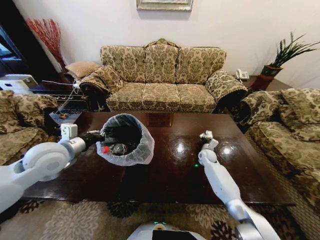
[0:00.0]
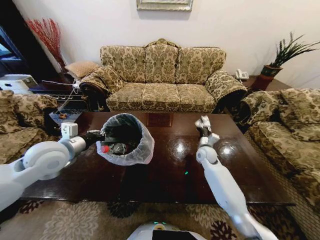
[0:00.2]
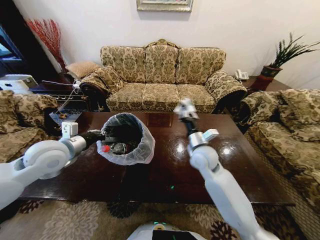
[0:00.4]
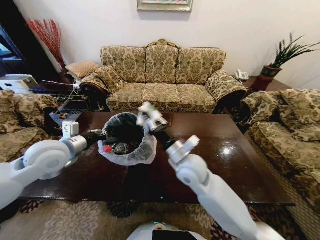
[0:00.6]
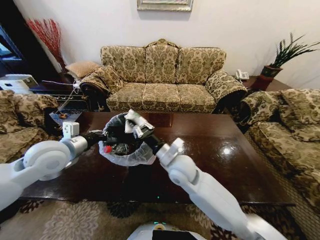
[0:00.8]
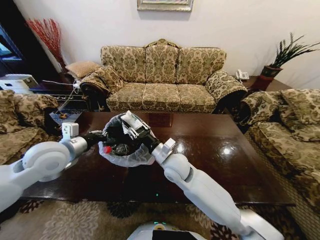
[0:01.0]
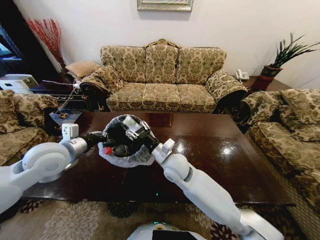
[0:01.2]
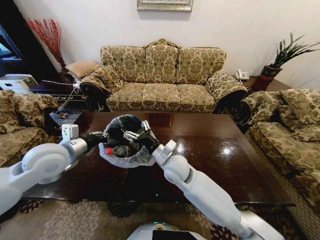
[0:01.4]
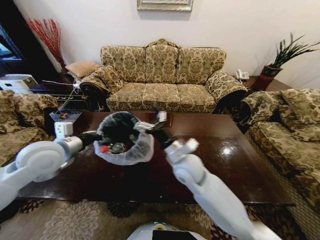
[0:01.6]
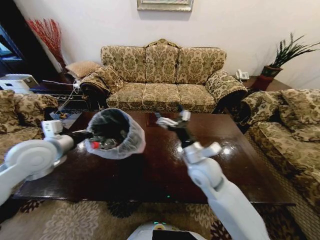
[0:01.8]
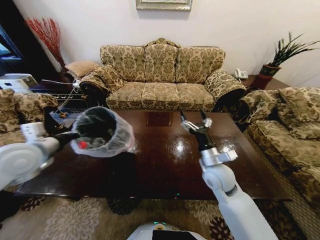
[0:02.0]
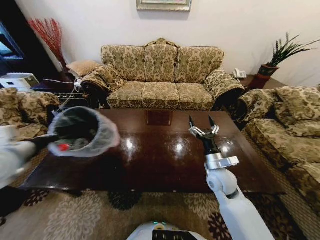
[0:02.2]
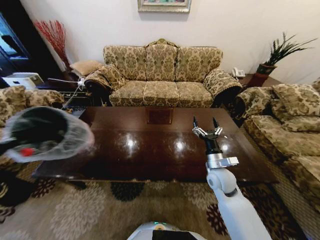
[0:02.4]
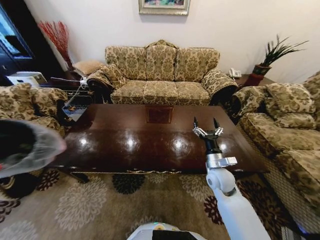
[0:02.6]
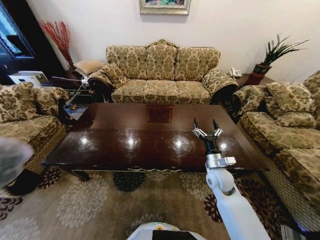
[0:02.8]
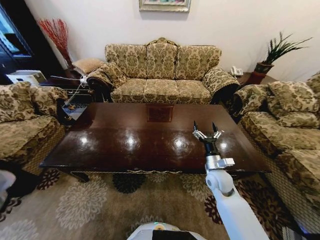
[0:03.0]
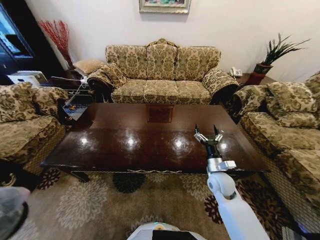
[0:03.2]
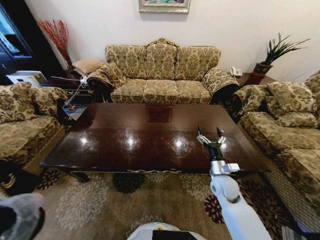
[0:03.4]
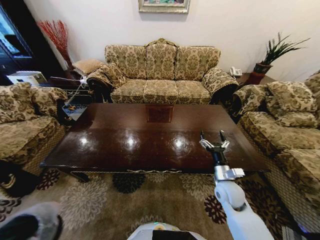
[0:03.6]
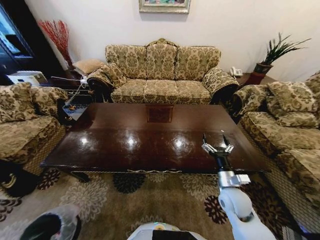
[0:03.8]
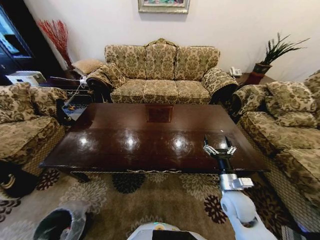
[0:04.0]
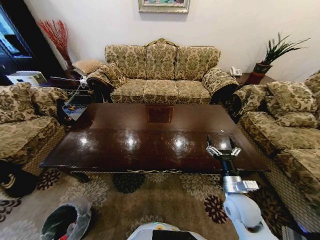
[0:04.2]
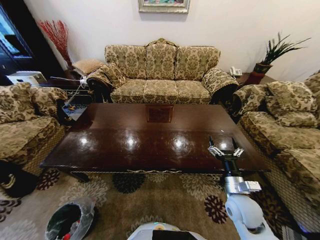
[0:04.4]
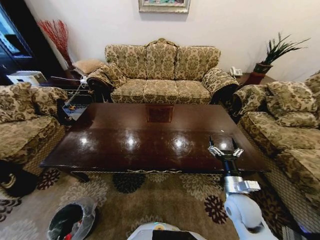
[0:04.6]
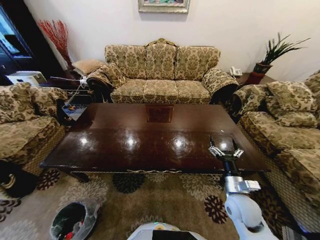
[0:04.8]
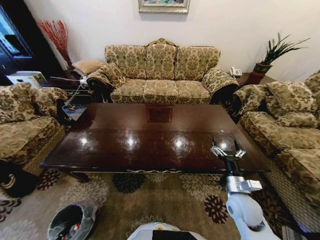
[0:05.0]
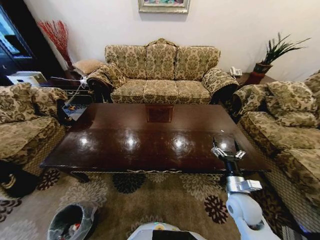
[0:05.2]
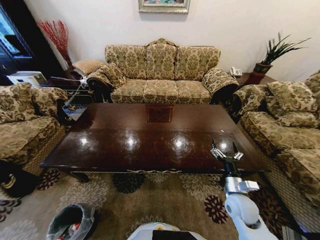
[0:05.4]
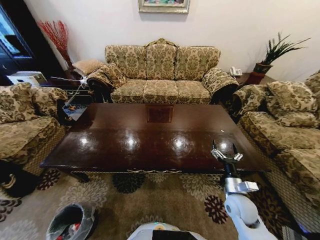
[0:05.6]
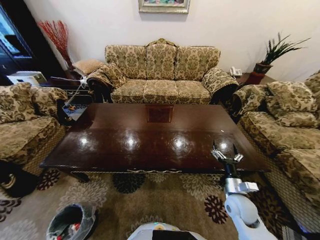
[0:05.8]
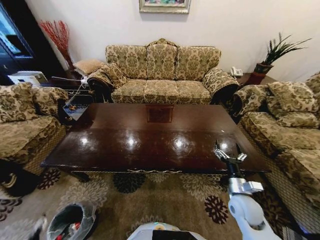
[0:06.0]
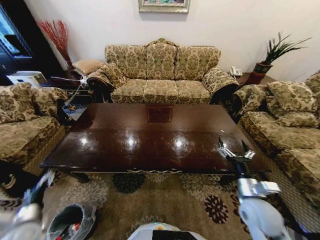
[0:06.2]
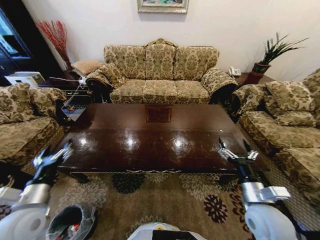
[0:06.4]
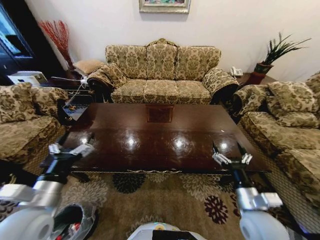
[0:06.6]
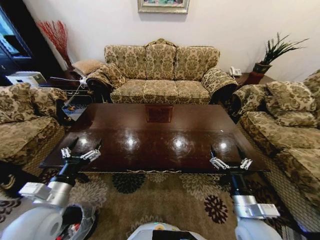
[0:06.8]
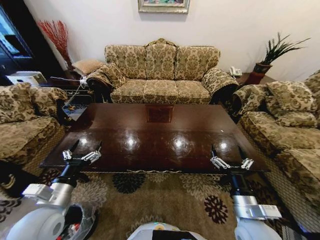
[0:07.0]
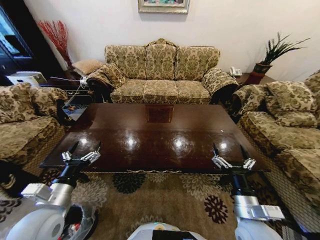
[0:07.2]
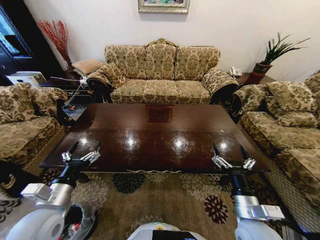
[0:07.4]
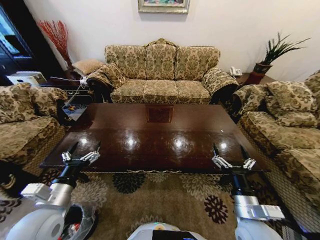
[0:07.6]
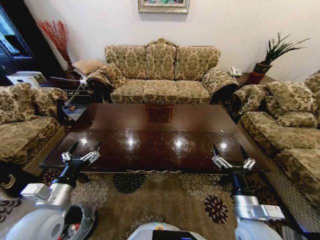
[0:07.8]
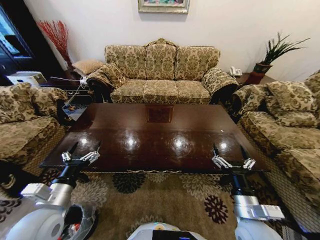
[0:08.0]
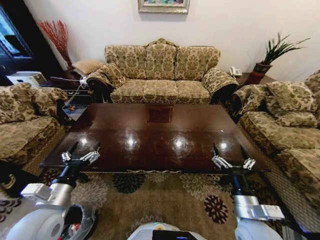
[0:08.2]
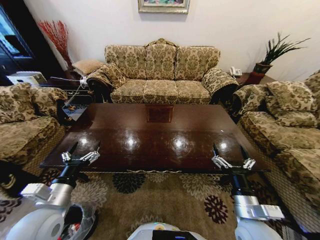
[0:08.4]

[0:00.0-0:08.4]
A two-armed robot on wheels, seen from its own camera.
Task of the whole recording: Move to the front of the table and place the trash on the table into the trash bin.
0:00.0 to 0:01.4: The right gripper goes roughly 35 cm to the left, upward and backward, and opens up.
0:01.4 to 0:02.8: The left gripper is displaced to the left and backward by approximately 35 cm, while the right gripper heads to the right and downward, covering approximately 20 cm.
0:02.8 to 0:04.2: The left gripper is displaced downward by roughly 50 cm. Meanwhile the right gripper goes roughly 10 cm backward.
0:04.2 to 0:05.6: The right gripper changes place by some 5 cm. Meanwhile the left gripper goes about 10 cm backward, and opens its fingers.
0:05.6 to 0:07.0: The left gripper goes some 40 cm upward, to the right and forward, while the right gripper heads backward and upward, covering about 10 cm.
0:07.0 to 0:08.4: Both grippers stay put.
